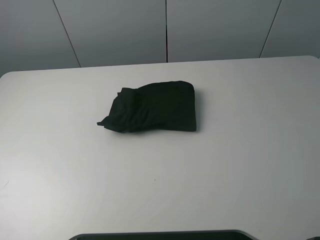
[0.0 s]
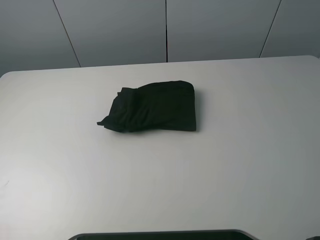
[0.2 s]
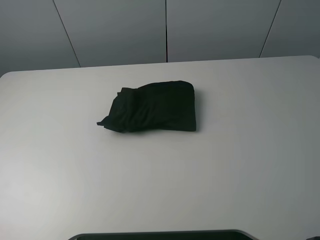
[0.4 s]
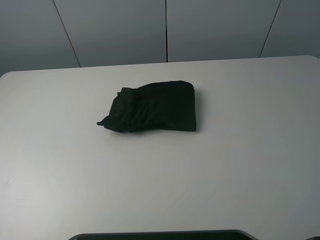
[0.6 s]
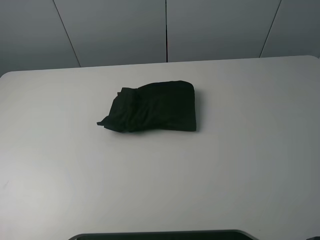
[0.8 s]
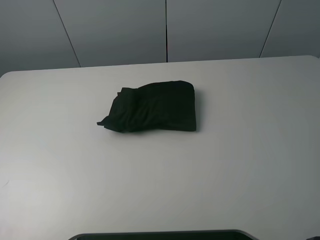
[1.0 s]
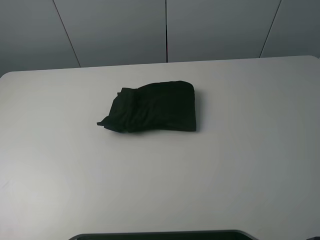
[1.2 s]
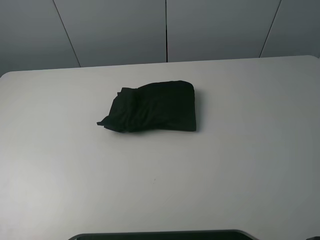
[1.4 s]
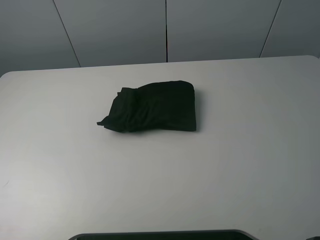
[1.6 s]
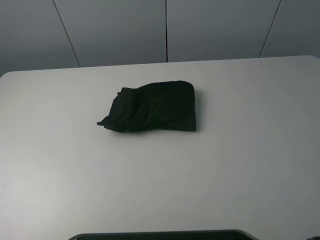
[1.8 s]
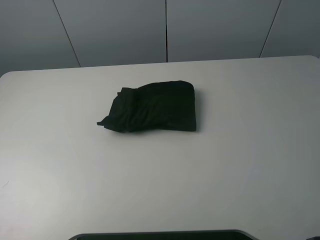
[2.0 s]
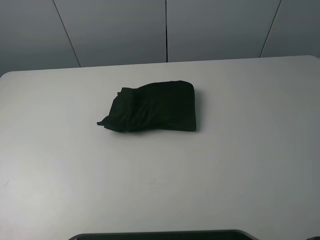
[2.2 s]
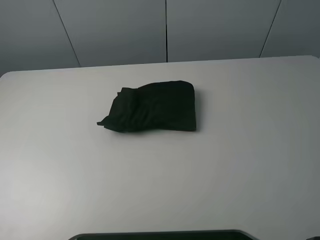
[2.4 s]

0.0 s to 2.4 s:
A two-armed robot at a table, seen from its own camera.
Task of the whole recording: fold the clothes on the table.
0.0 to 1.2 s: The left gripper heads downward, forward and to the right, covering some 15 cm.
1.2 to 2.4 s: Both grippers stay put.
